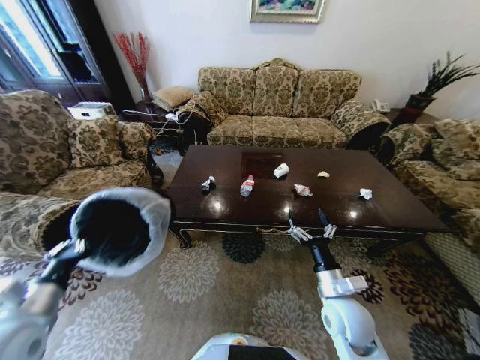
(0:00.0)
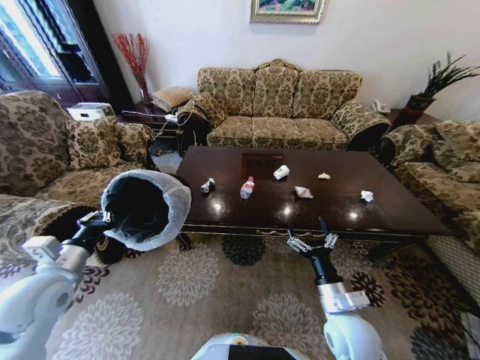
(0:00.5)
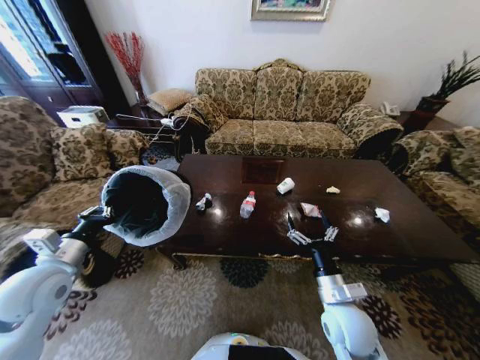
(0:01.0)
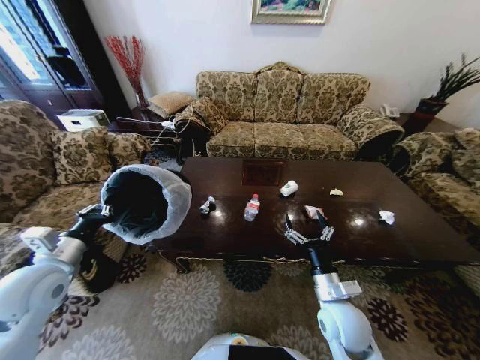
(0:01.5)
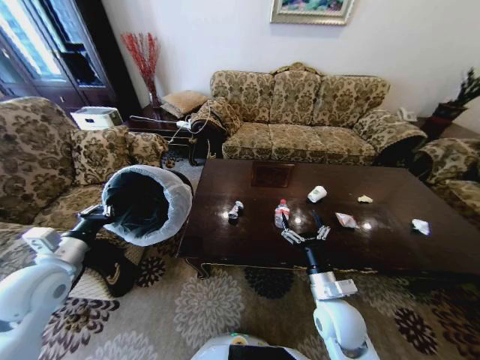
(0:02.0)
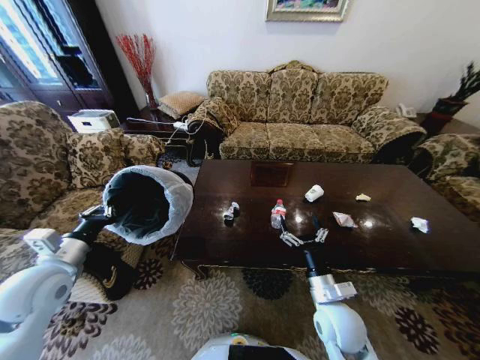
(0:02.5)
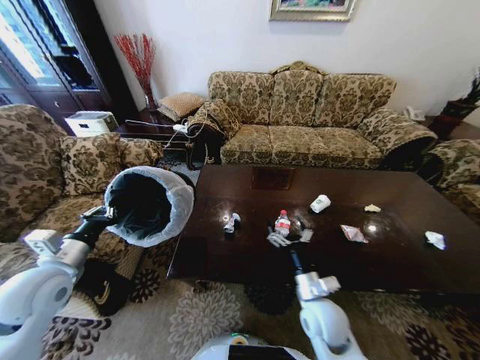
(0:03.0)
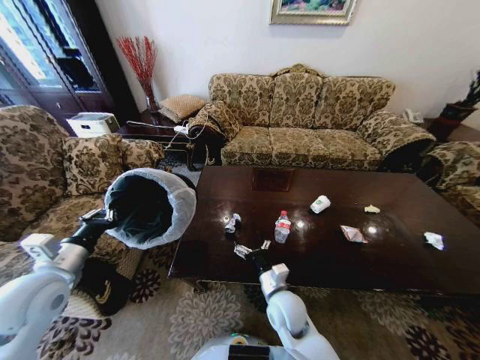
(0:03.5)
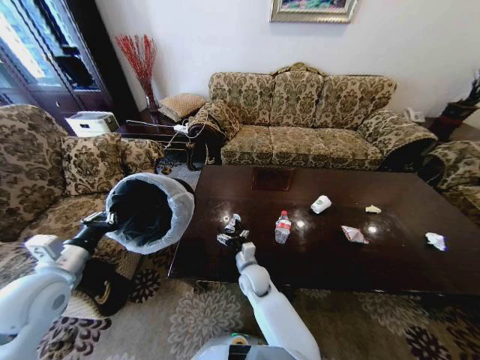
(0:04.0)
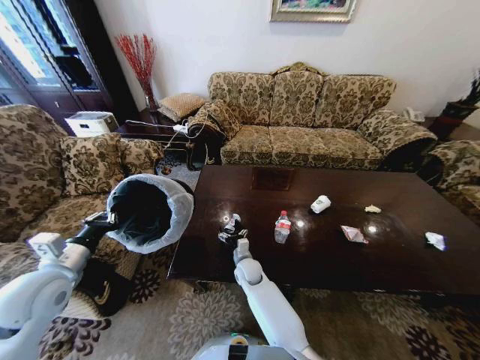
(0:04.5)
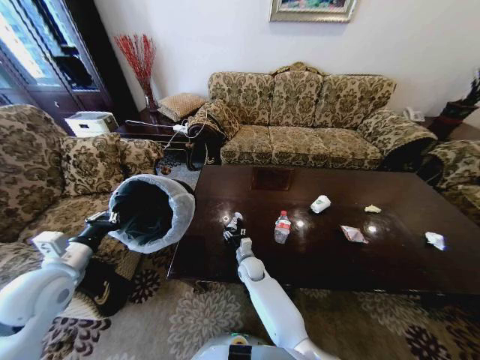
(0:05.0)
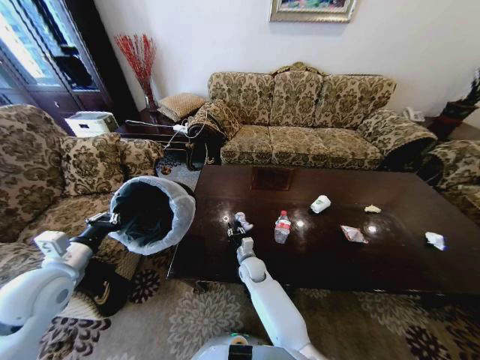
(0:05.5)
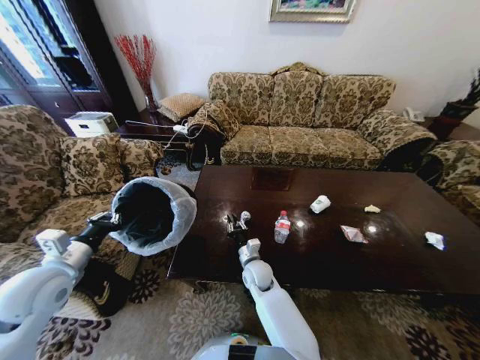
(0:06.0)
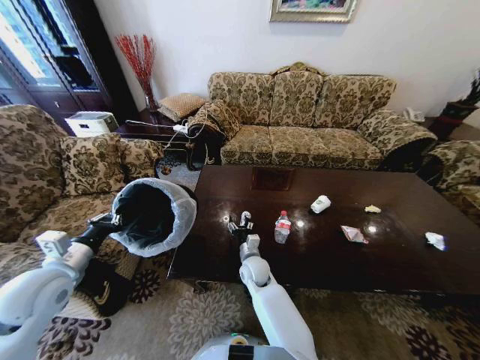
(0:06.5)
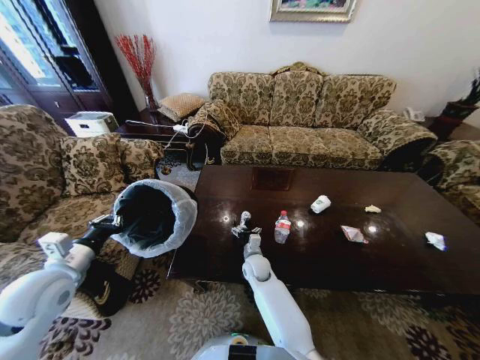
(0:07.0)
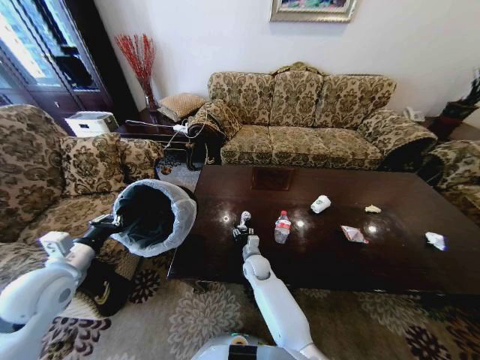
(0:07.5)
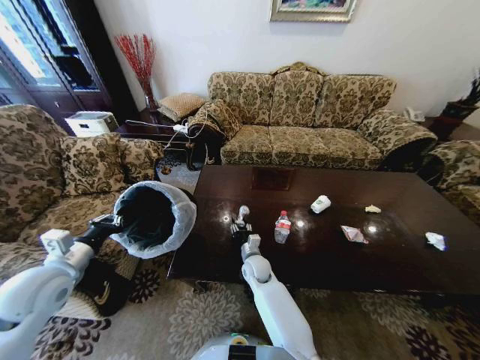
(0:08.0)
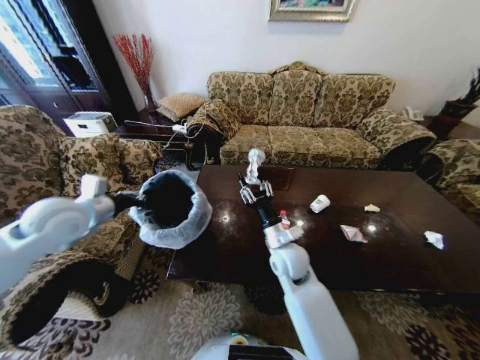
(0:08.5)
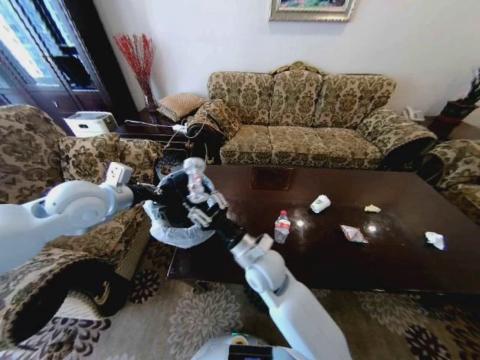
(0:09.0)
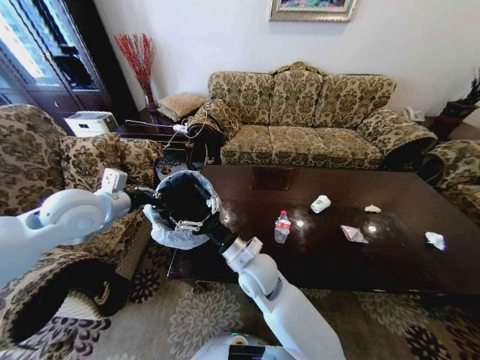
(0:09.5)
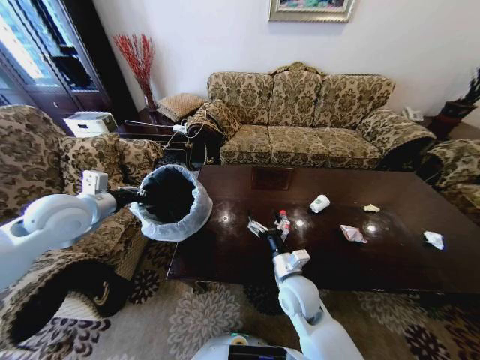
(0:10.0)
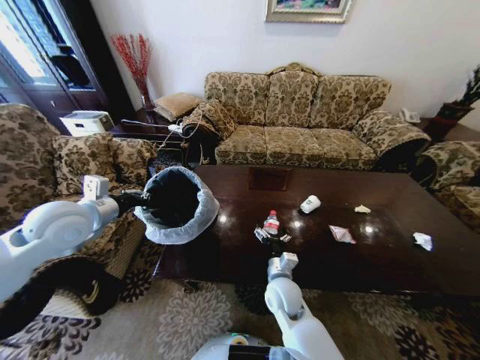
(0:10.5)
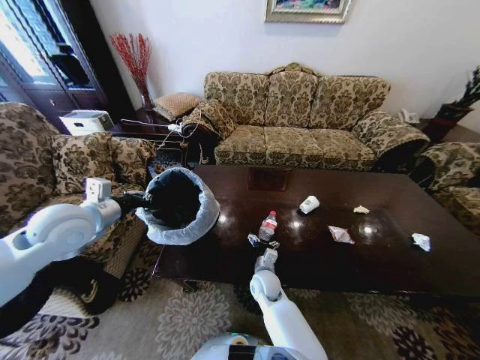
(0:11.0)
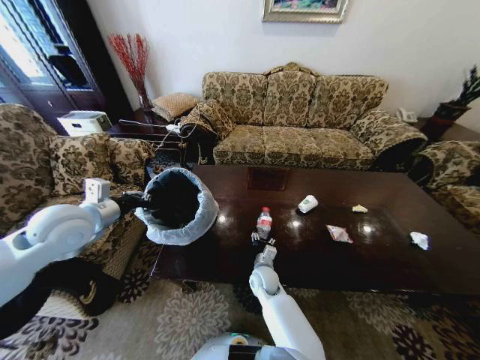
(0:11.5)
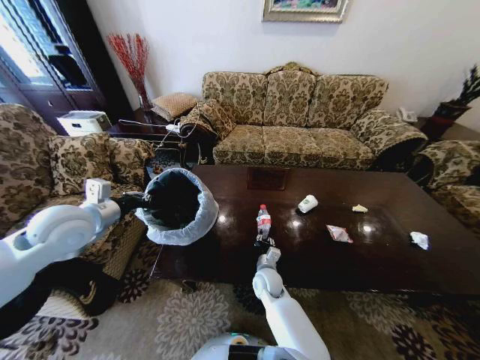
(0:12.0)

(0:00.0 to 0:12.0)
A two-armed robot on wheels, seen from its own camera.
Task of the whole recording: Move to the front of the table and place the trash on the table into the trash bin.
0:00.0 - 0:02.0: The left gripper goes some 10 cm forward.
0:02.0 - 0:04.0: The right gripper goes some 25 cm to the left, forward and downward.
0:04.0 - 0:06.0: The right gripper closes up.
0:06.0 - 0:08.0: The right gripper opens and closes again.
0:08.0 - 0:10.0: The right gripper goes roughly 20 cm upward, backward and to the right, and opens. The left gripper is displaced upward and forward by about 15 cm.
0:10.0 - 0:12.0: The right gripper moves downward, forward and to the left, roughly 15 cm, and closes its fingers.

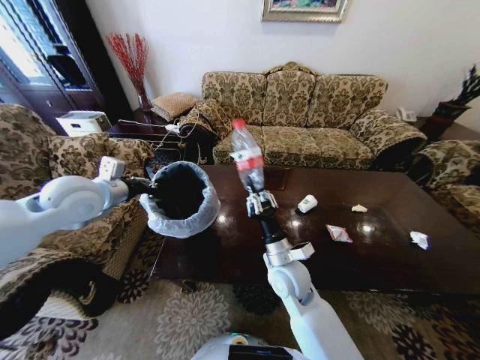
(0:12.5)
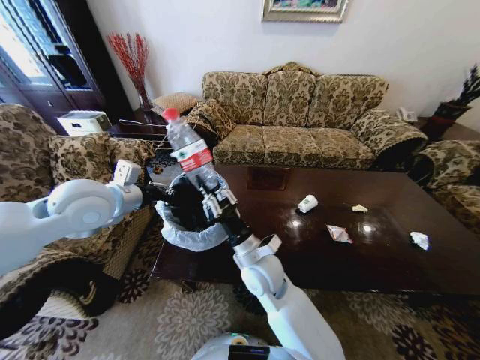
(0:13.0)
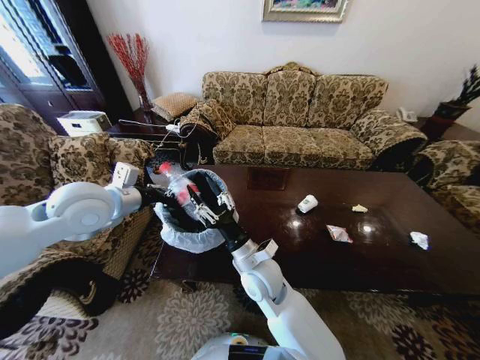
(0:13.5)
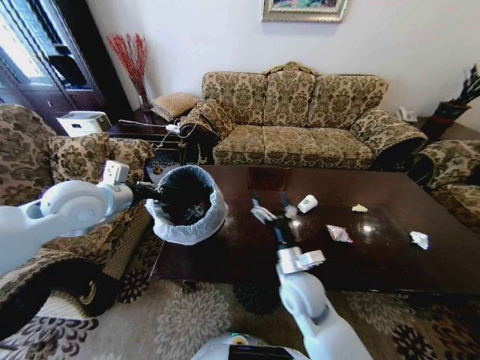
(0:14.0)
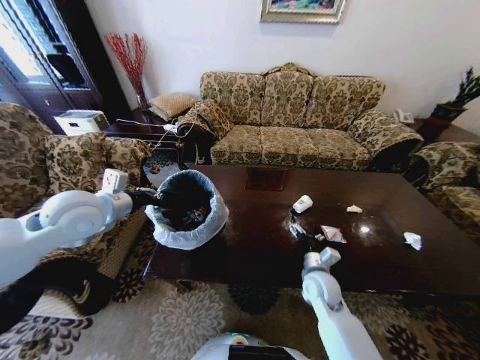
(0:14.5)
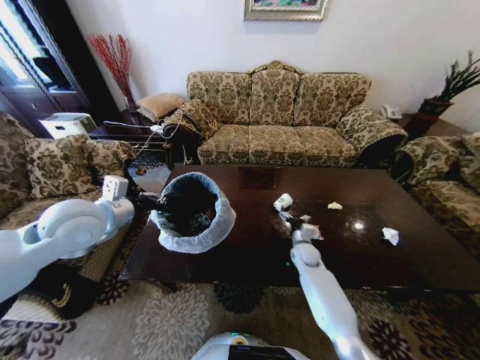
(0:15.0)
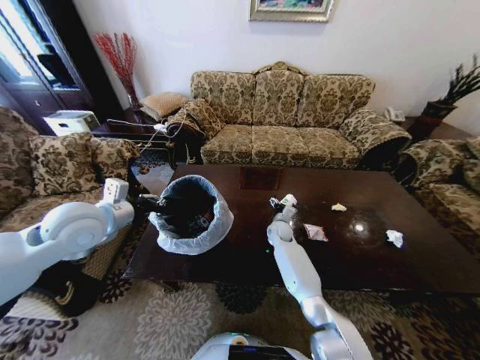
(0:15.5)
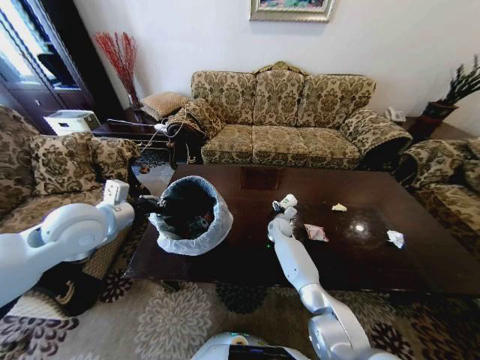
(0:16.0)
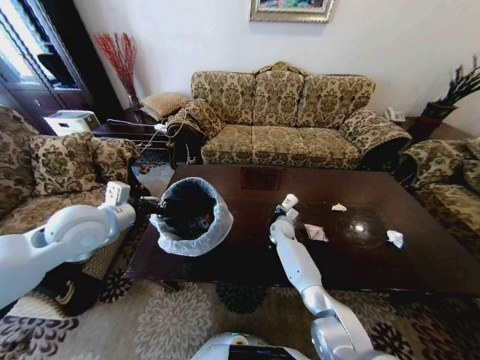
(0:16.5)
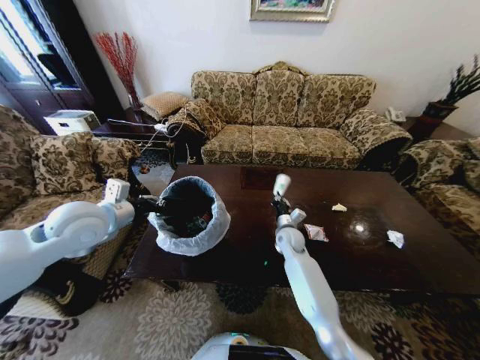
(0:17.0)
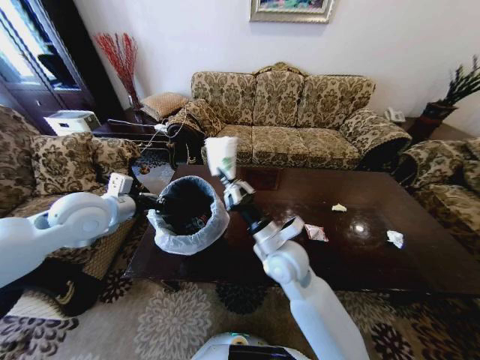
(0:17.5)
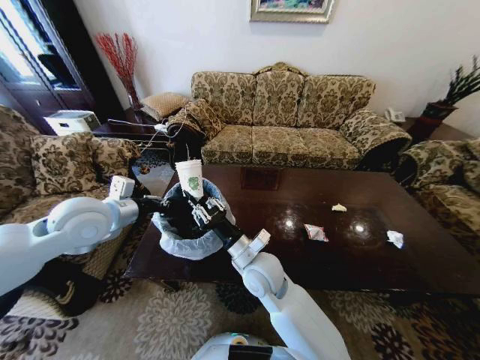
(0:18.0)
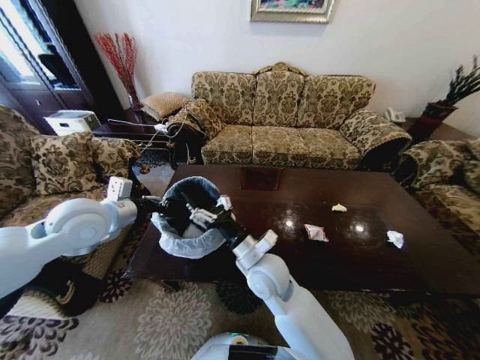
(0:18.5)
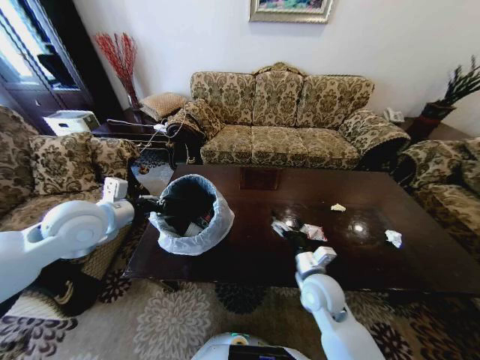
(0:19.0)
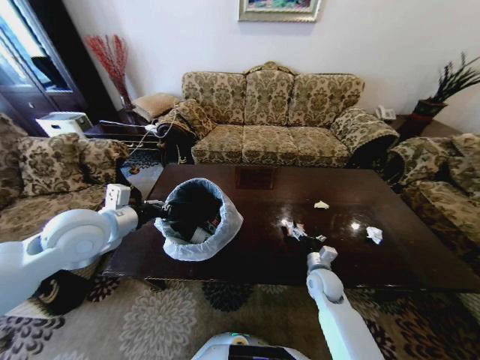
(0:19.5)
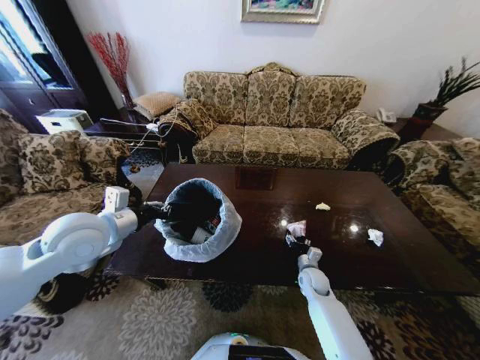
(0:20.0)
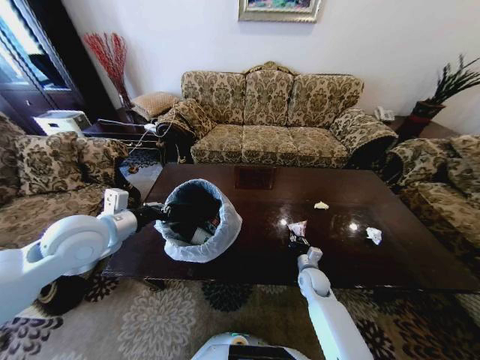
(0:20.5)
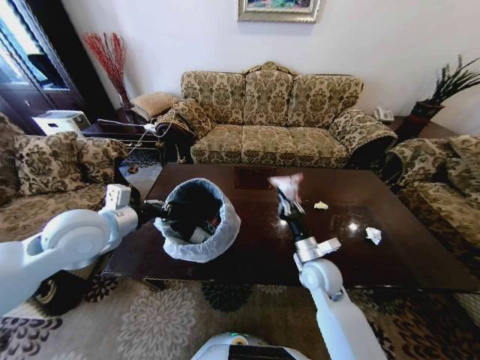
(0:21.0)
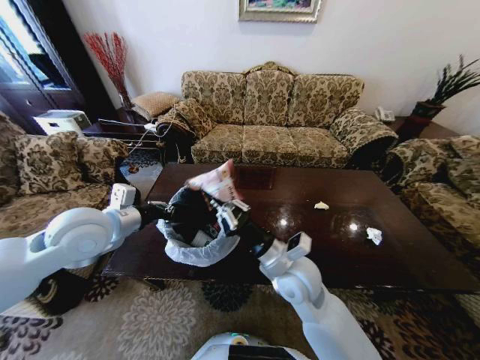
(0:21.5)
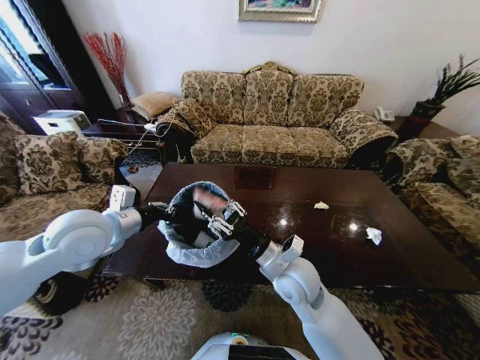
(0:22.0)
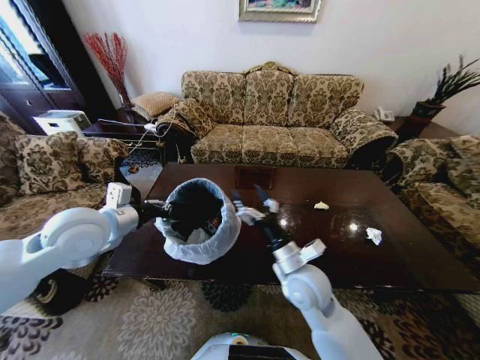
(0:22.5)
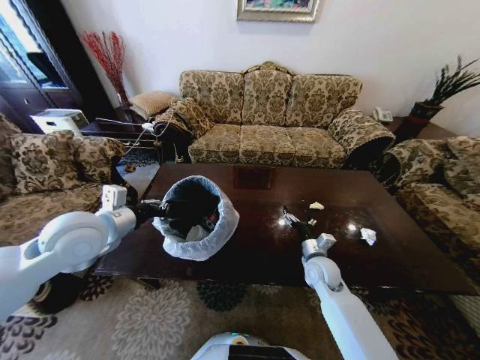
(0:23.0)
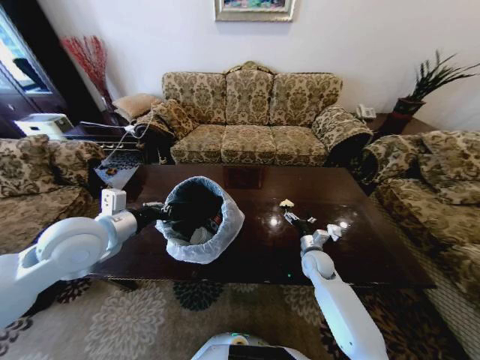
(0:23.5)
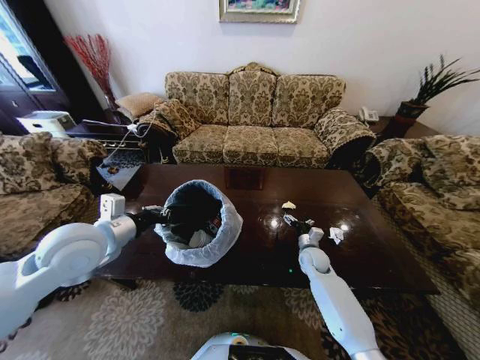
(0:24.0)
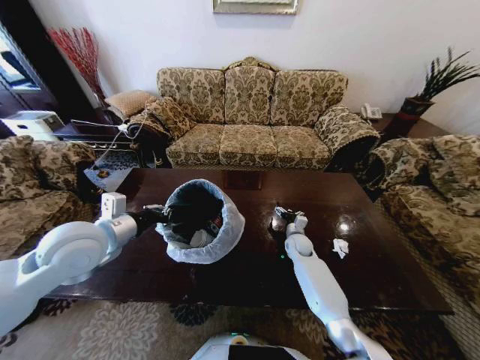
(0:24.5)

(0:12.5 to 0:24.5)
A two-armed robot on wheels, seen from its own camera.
Task of the whole recording: Move to the front of the table and place the trash on the table into the trash bin.
0:12.5 - 0:14.5: The right gripper heads to the right and downward, covering some 15 cm, and opens.
0:14.5 - 0:16.5: The right gripper shifts some 25 cm forward, and closes its fingers.
0:16.5 - 0:18.5: The right gripper heads backward, upward and to the left, covering roughly 35 cm, and closes, then opens again.
0:18.5 - 0:20.5: The right gripper heads downward and to the right, covering about 30 cm, and closes up.
0:20.5 - 0:22.5: The right gripper goes roughly 25 cm upward, to the left and backward, and opens up.
0:22.5 - 0:24.5: The right gripper goes roughly 25 cm forward and downward.

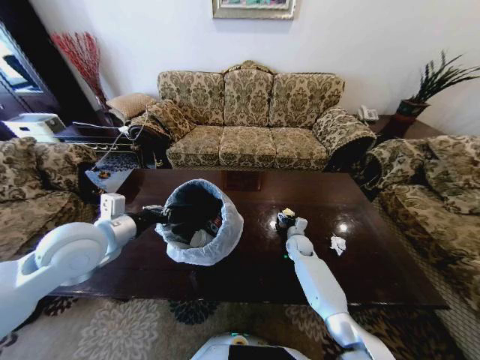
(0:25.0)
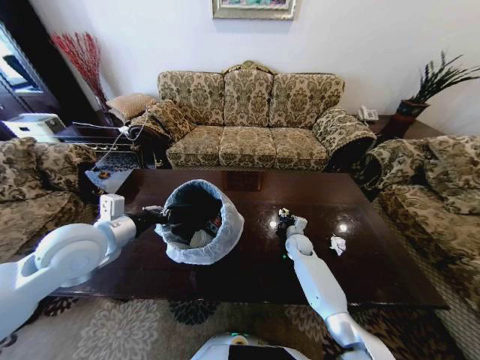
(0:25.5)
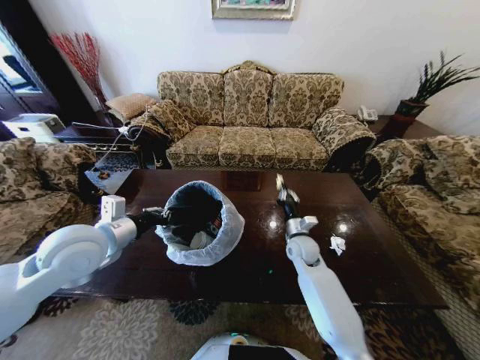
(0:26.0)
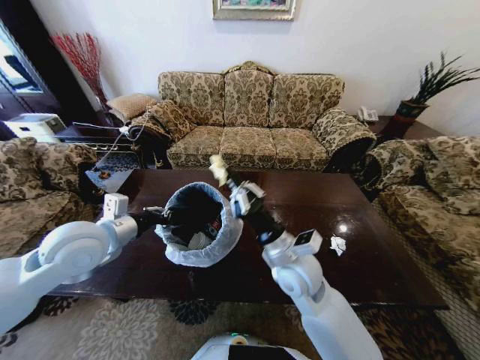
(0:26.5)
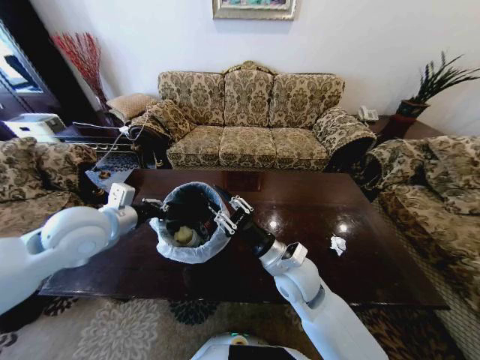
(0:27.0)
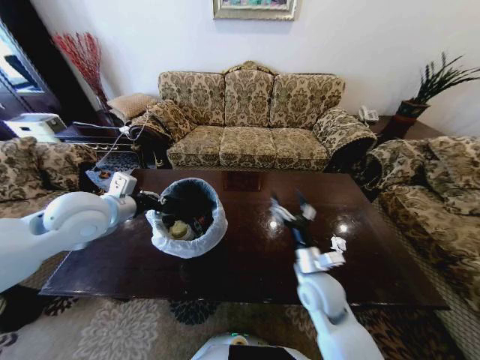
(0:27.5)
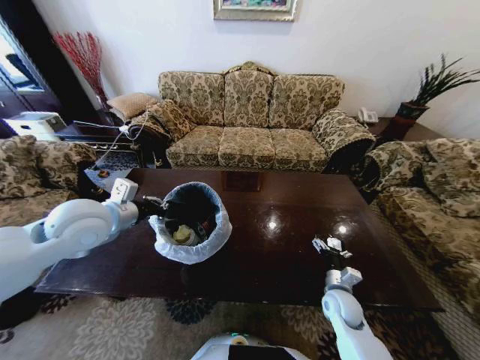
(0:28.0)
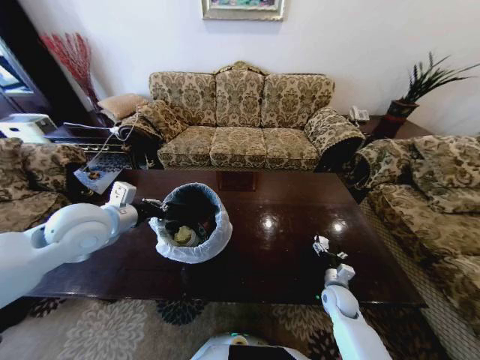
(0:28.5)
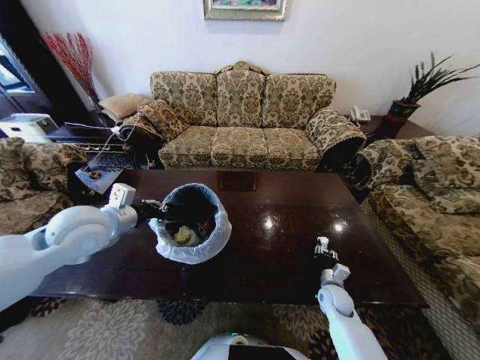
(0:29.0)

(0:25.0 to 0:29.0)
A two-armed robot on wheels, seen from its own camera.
Task of the whole recording: Move to the front of the table and place the trash on the table into the trash bin.
0:25.0 - 0:27.0: The right gripper is displaced upward, backward and to the left by some 30 cm, and closes up.
0:27.0 - 0:29.0: The right gripper heads downward and to the right, covering roughly 30 cm, and opens and closes again.
